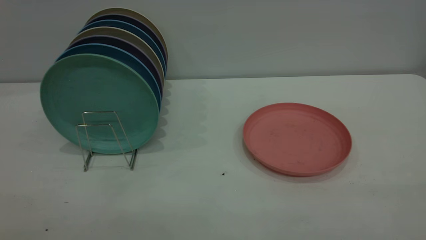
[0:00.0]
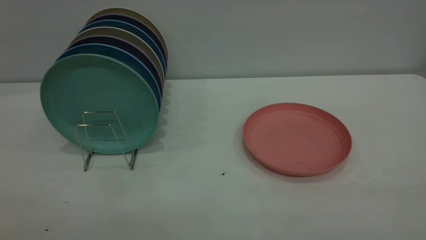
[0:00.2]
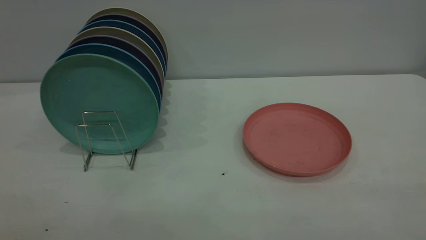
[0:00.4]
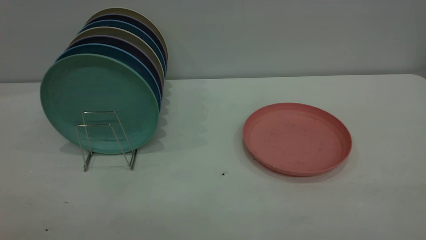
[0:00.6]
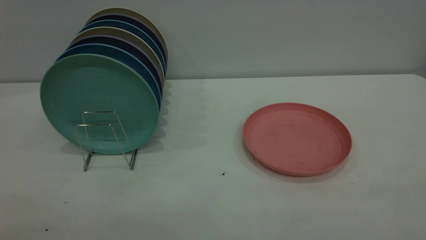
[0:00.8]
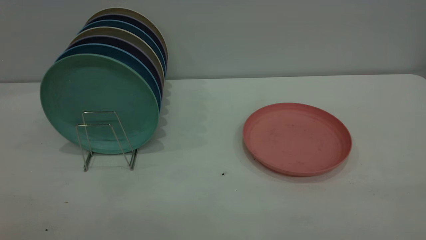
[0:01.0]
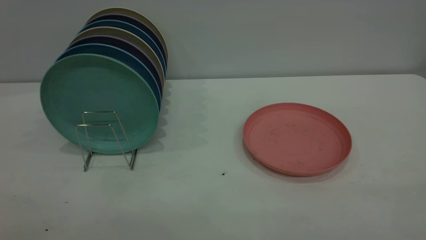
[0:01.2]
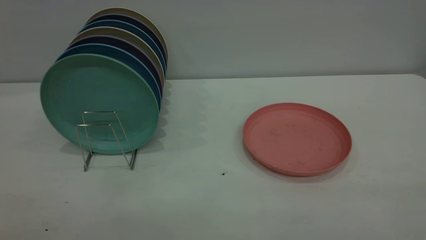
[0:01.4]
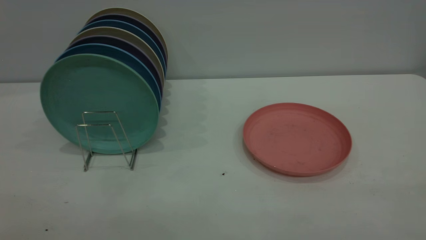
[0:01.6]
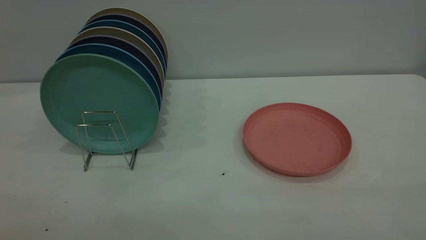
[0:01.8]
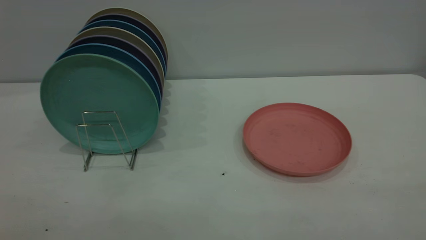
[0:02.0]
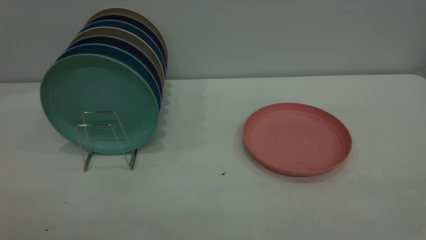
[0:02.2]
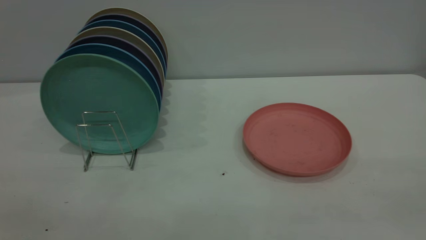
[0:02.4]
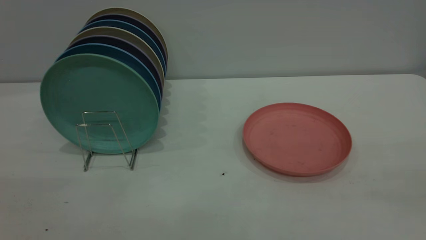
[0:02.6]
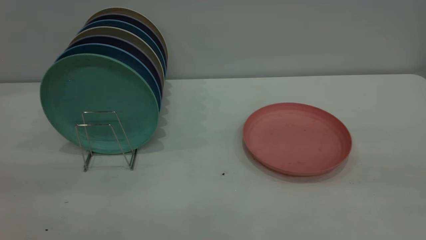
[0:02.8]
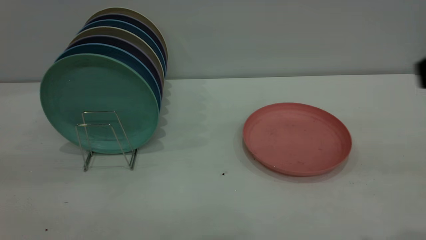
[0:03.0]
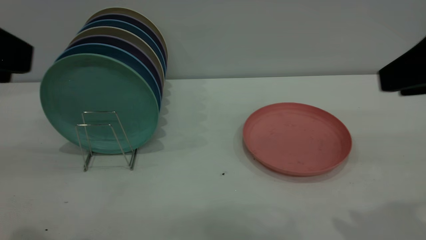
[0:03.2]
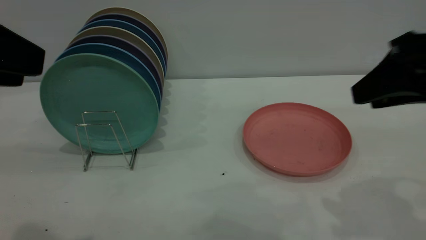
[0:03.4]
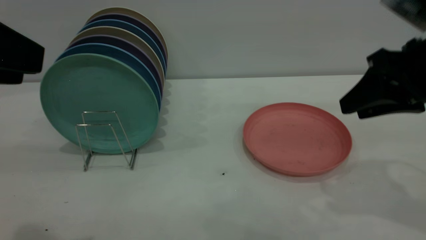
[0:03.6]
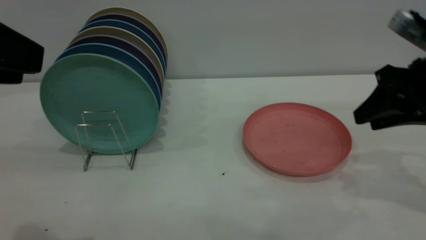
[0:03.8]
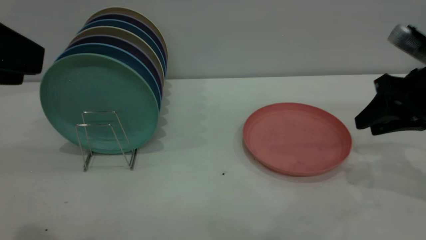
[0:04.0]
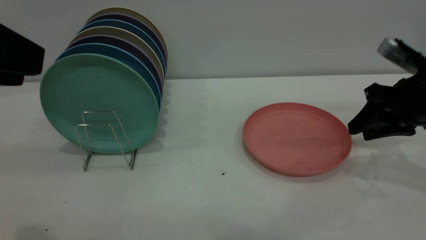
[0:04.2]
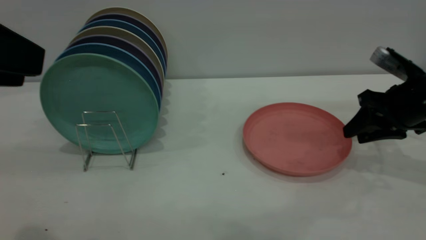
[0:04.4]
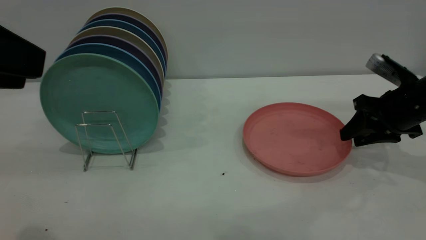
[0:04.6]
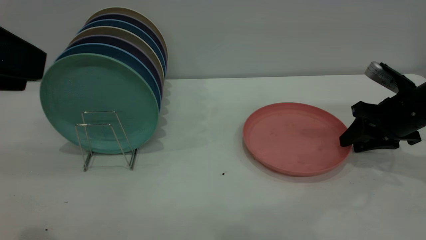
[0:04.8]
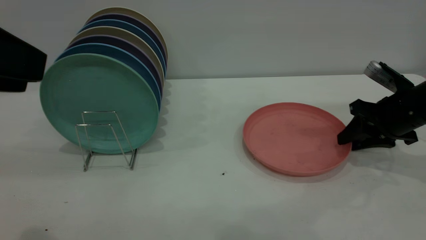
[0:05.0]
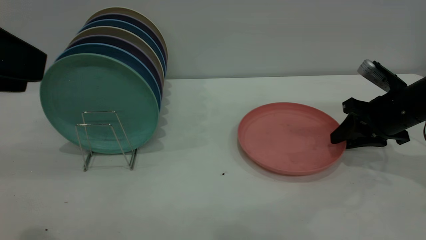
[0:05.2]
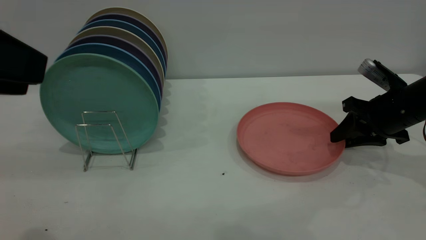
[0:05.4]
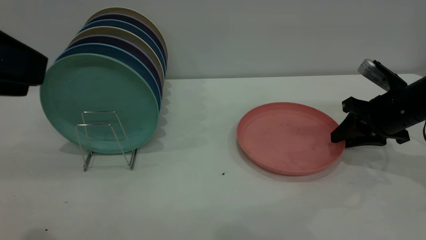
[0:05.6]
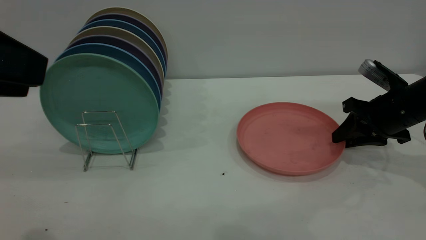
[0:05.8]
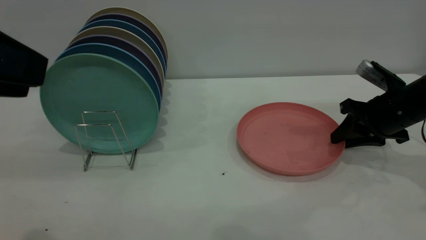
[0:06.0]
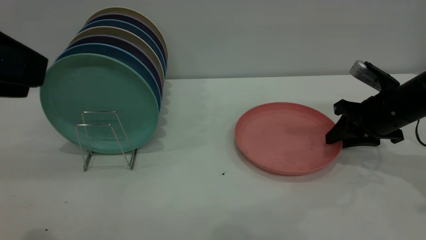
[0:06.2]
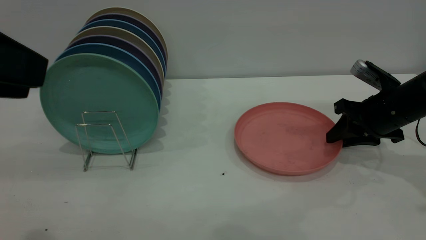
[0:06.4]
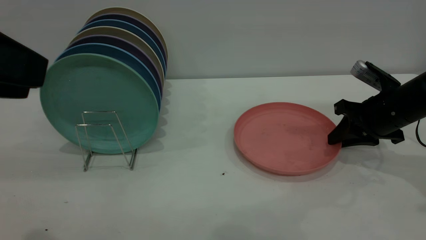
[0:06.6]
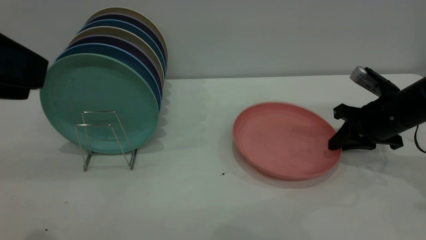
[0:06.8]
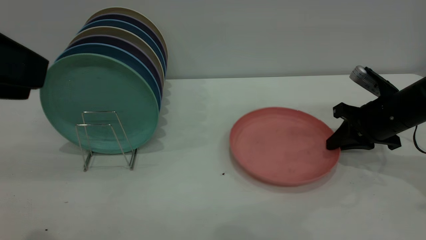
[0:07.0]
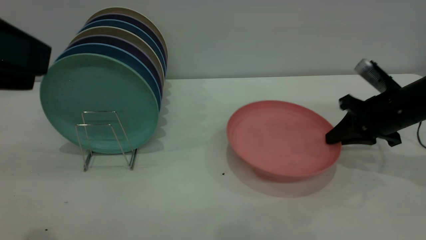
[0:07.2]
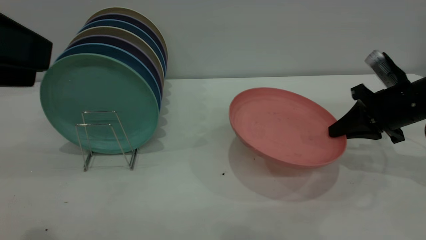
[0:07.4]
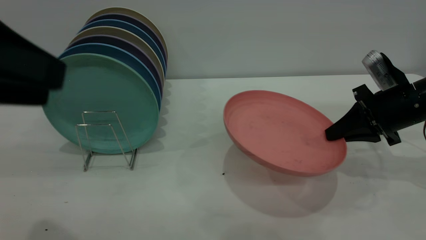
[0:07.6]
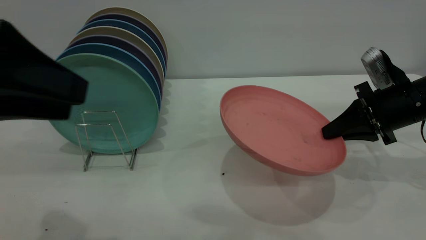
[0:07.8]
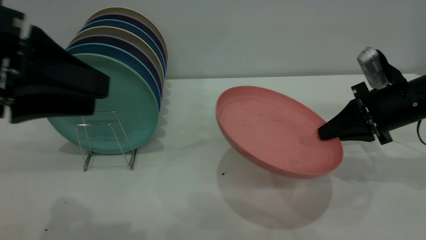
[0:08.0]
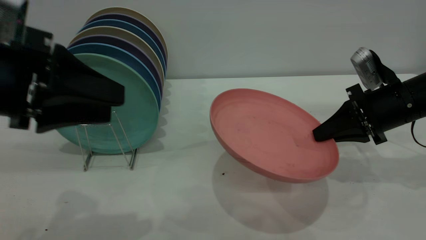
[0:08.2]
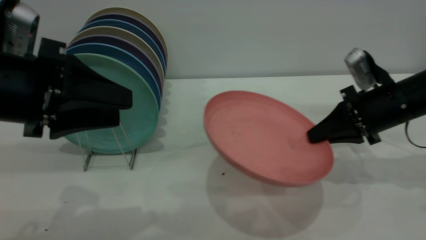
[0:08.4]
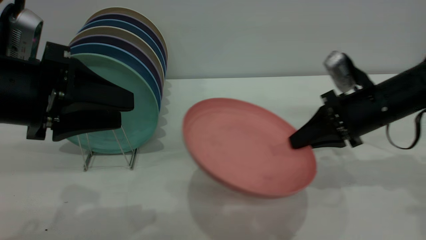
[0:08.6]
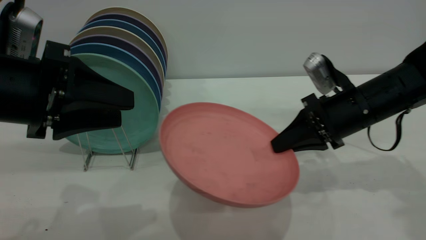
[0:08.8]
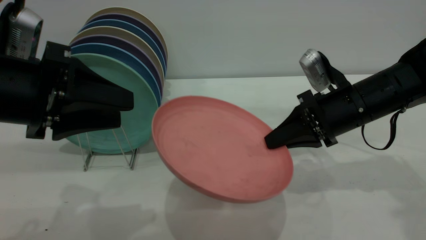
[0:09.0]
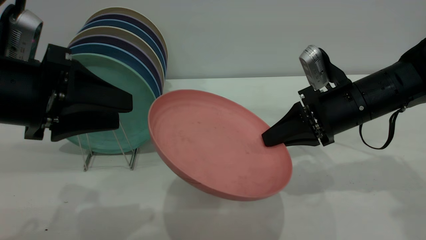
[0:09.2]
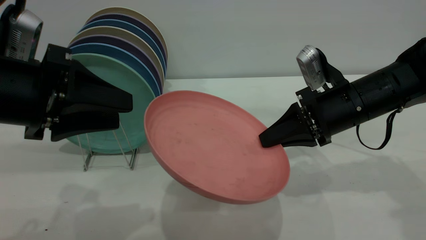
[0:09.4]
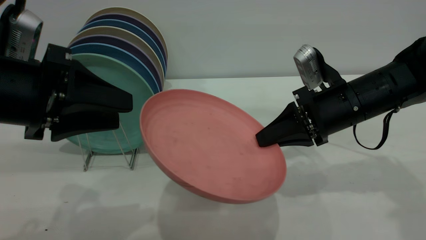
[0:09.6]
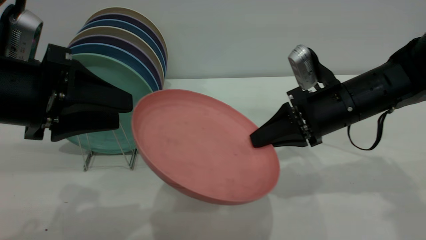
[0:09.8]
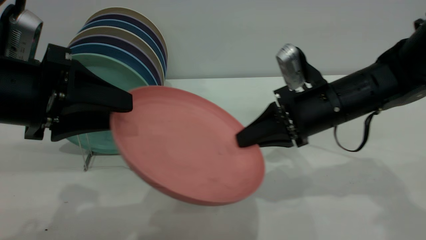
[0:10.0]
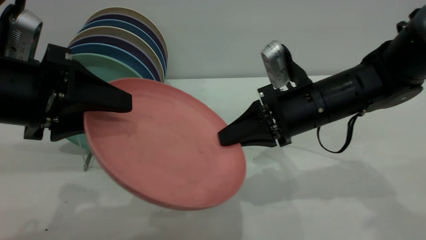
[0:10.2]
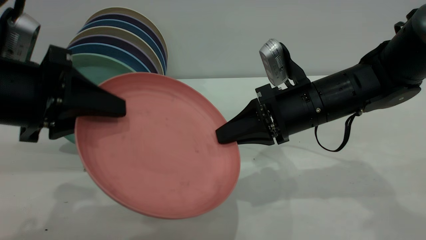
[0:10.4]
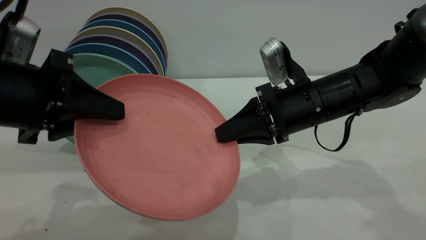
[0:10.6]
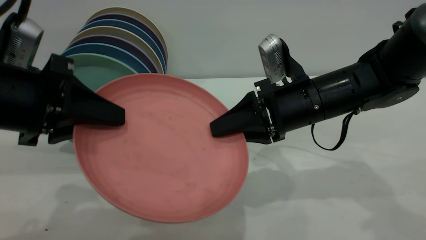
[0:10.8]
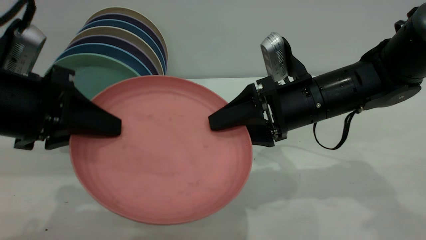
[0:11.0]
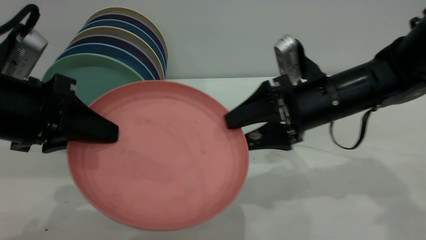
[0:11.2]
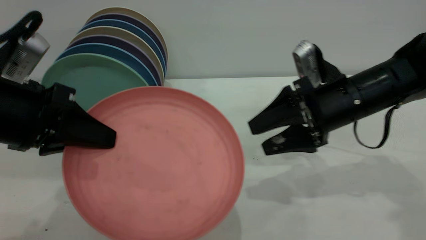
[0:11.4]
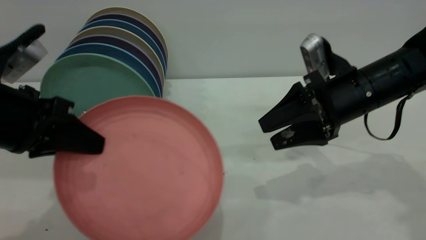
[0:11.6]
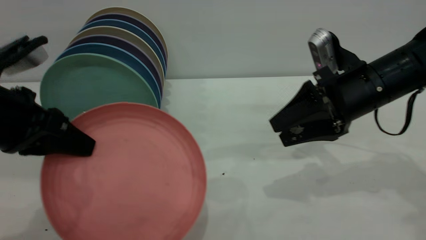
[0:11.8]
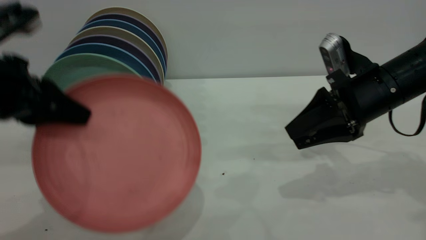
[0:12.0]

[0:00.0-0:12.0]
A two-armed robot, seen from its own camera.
Task of the whole recording: the right gripper grasp the pink plate, the right gripper pass the pink plate to the left gripper, and the left gripper place the pink plate on the plate rack.
Step, 0:00.0 to 0:07.2: Pick up the plate with the right gripper.
Step, 0:07.4 to 0:11.2: Pass the plate from the right gripper to the left gripper.
0:00.0 to 0:01.6: Both grippers stay about where they are.
0:03.0 to 0:04.4: The right gripper heads forward and downward, covering roughly 30 cm.
0:04.4 to 0:06.0: The grippers make only small movements.
0:06.0 to 0:07.6: The right gripper closes its fingers.
0:07.6 to 0:09.0: The right gripper heads to the left, covering about 10 cm. The left gripper travels downward and forward by approximately 10 cm.
0:09.0 to 0:10.4: The left gripper closes its fingers, while the right gripper goes some 5 cm to the left.
0:10.4 to 0:12.0: The right gripper shifts some 10 cm to the right, and opens its fingers; the left gripper closes up.

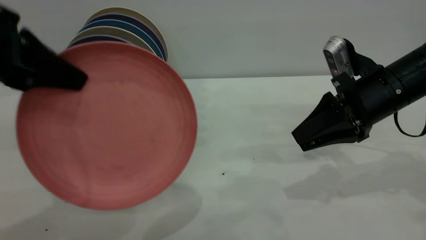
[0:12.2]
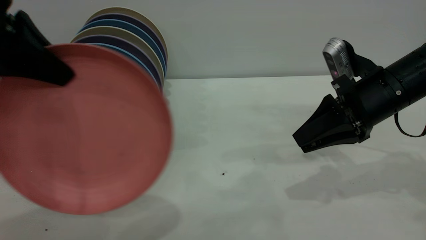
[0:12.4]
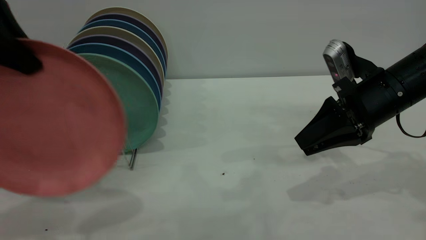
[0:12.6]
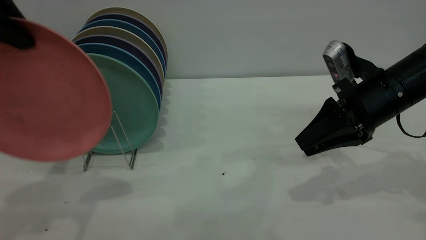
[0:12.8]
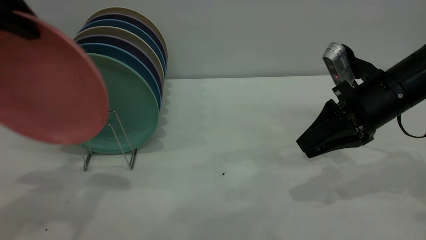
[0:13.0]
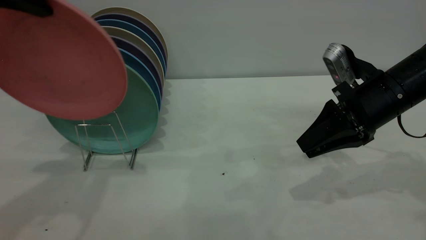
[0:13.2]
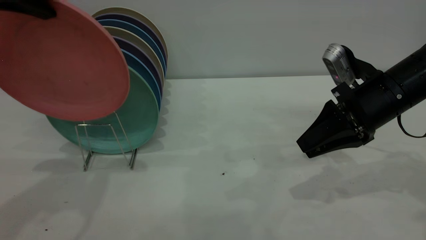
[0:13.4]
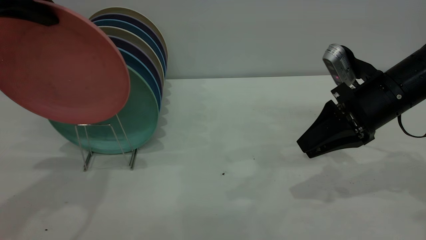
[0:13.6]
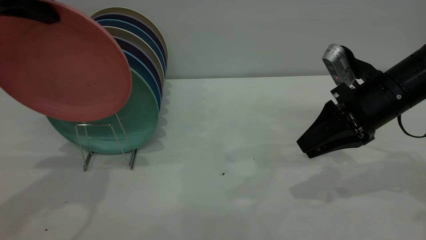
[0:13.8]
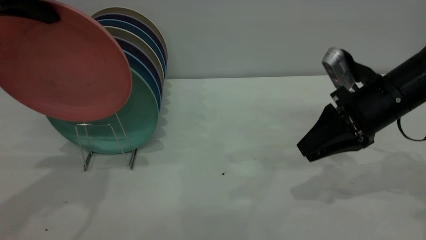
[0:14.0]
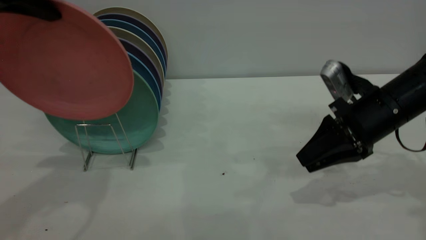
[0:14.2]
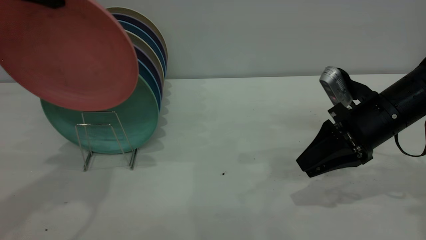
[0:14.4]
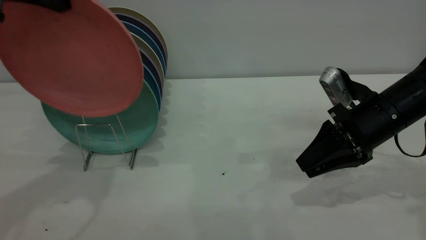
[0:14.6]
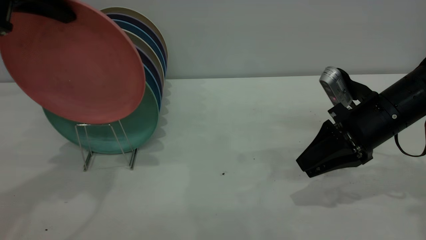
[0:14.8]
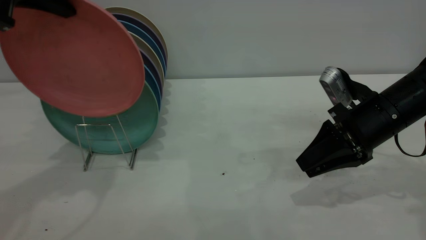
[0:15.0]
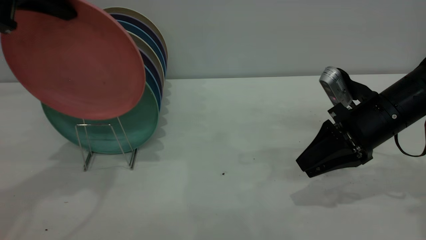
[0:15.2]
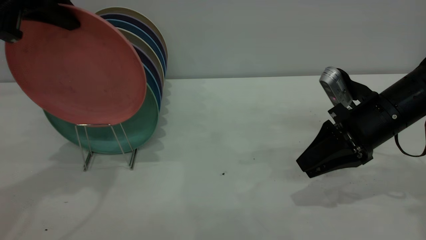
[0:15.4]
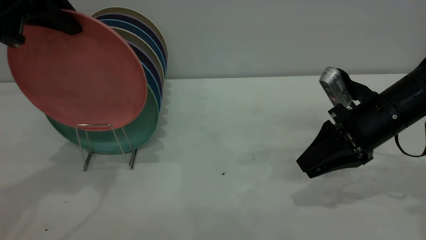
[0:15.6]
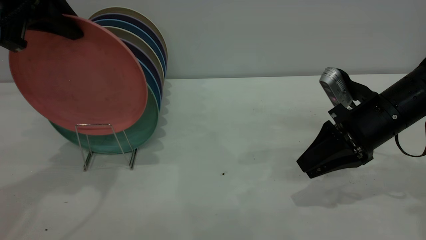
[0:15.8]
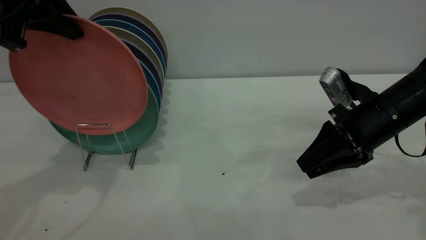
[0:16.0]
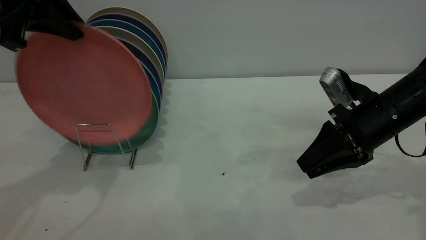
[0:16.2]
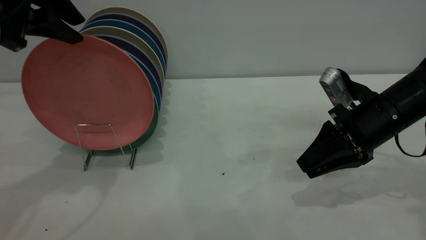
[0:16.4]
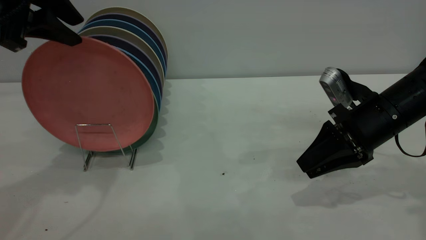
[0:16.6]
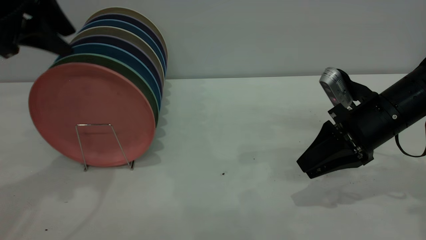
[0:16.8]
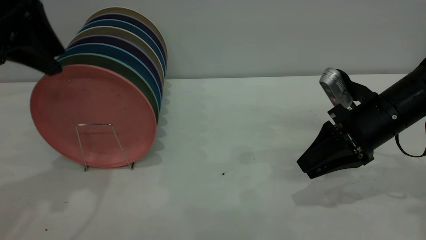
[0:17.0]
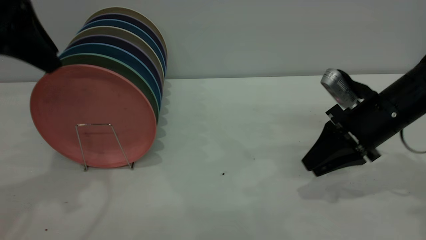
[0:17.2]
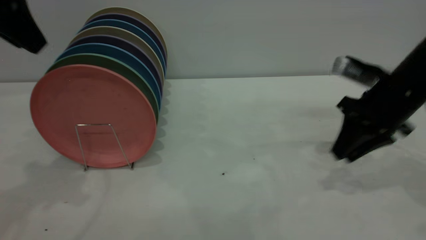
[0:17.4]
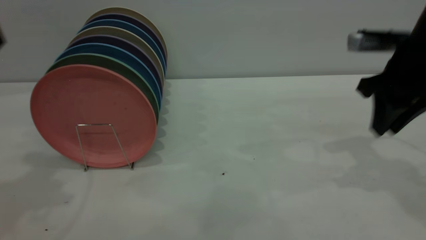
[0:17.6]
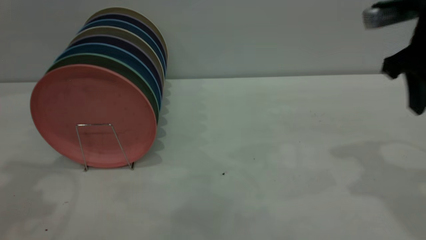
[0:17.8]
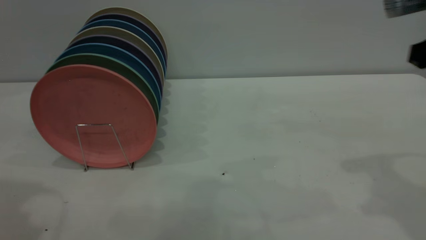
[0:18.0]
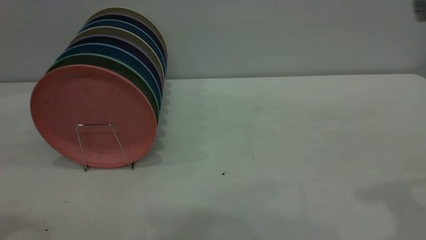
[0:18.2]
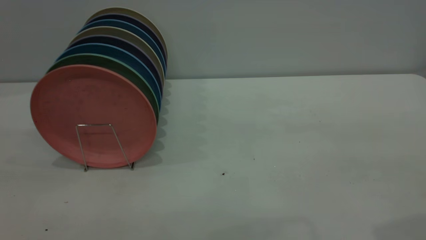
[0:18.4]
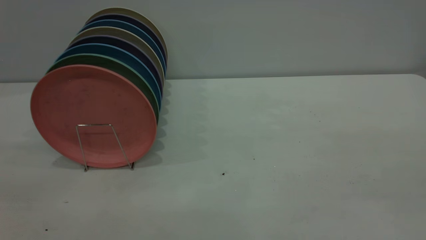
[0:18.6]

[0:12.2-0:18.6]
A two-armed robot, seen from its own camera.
Task of the whole recording: the right gripper grasp the pink plate, the right gripper pass the pink plate to the left gripper, and the left gripper place the pink plate on the plate rack.
Step, 0:12.2 to 0:17.2: Place the plate on the shelf.
0:12.2 to 0:13.8: The left gripper shifts some 10 cm forward and upward.
0:13.8 to 0:15.4: The grippers make only small movements.
0:15.4 to 0:17.0: The left gripper opens its fingers.
0:17.0 to 0:18.6: The right gripper moves backward and upward, approximately 30 cm; the left gripper goes some 25 cm backward.
